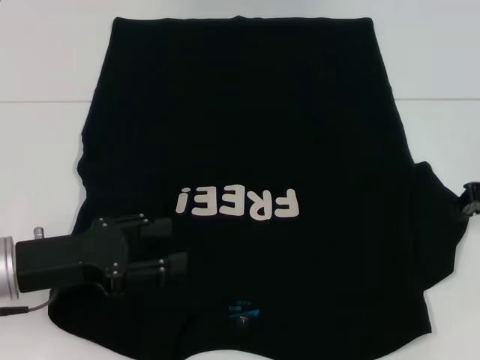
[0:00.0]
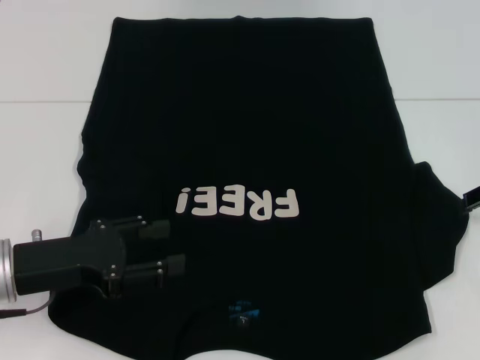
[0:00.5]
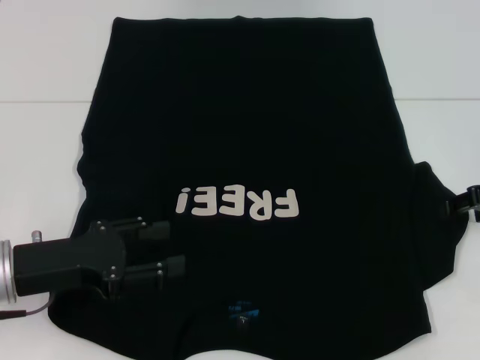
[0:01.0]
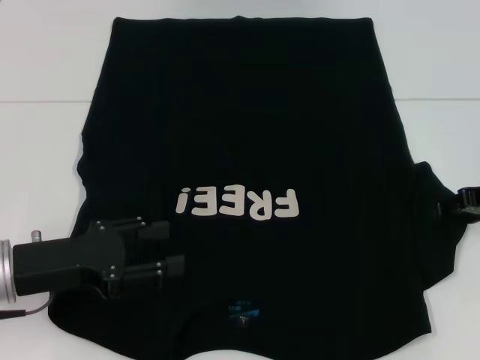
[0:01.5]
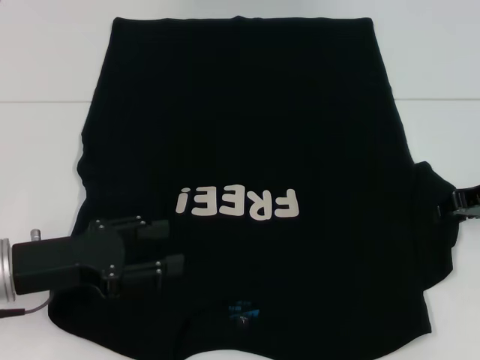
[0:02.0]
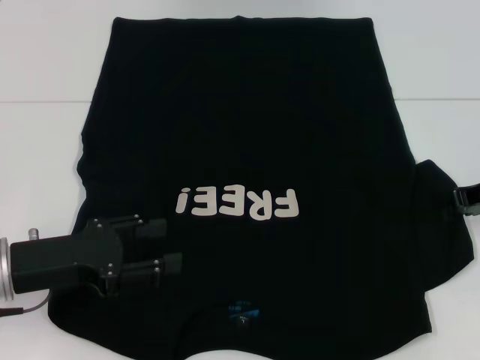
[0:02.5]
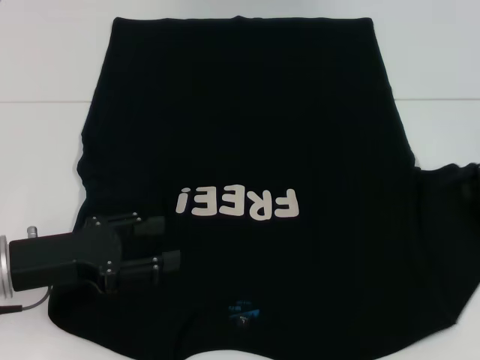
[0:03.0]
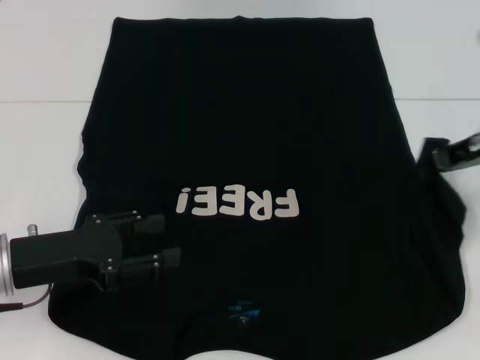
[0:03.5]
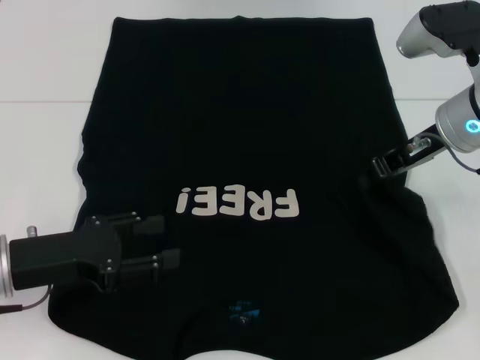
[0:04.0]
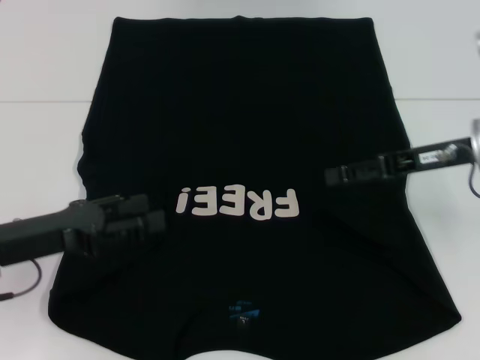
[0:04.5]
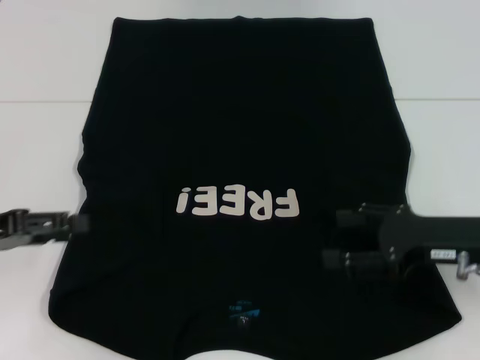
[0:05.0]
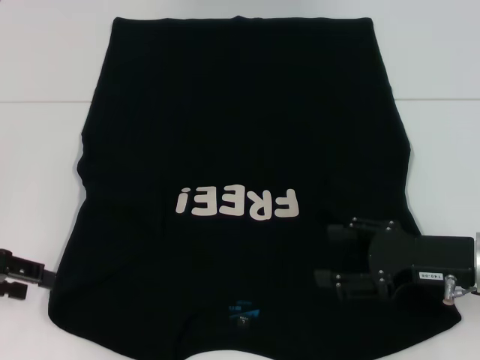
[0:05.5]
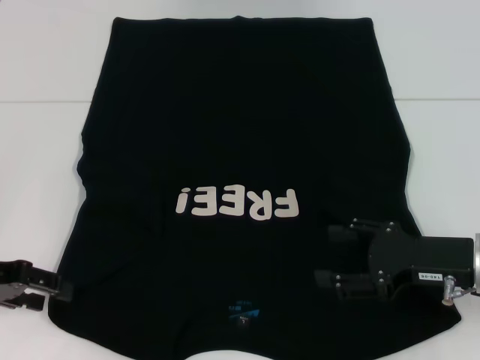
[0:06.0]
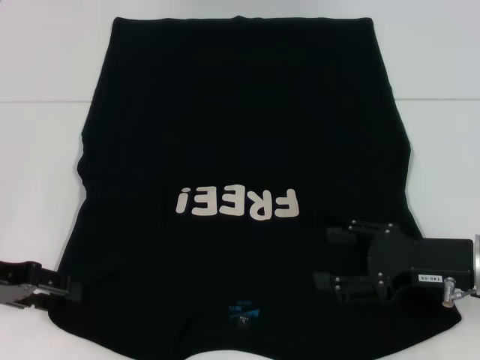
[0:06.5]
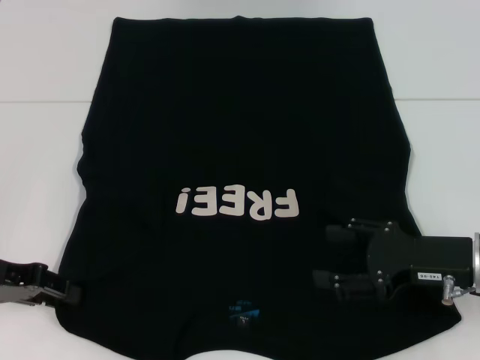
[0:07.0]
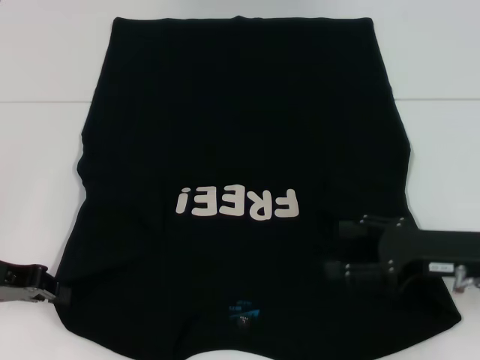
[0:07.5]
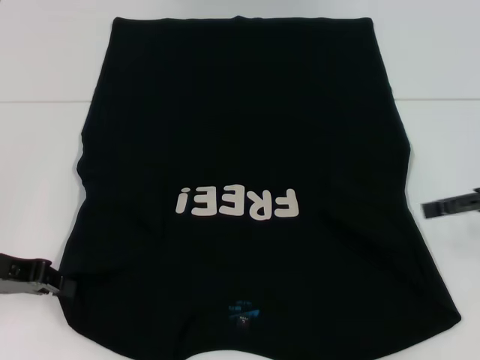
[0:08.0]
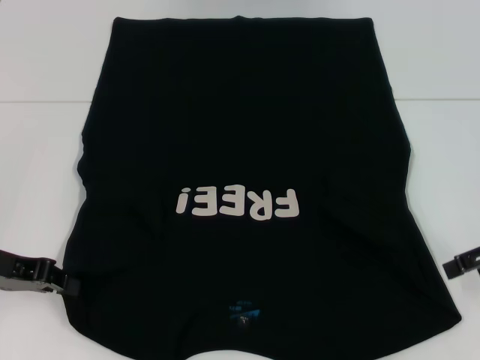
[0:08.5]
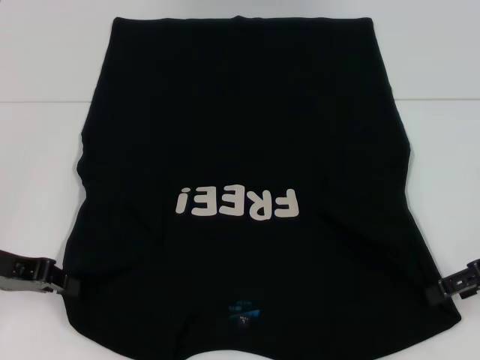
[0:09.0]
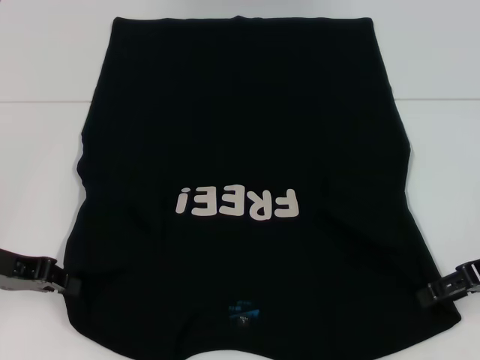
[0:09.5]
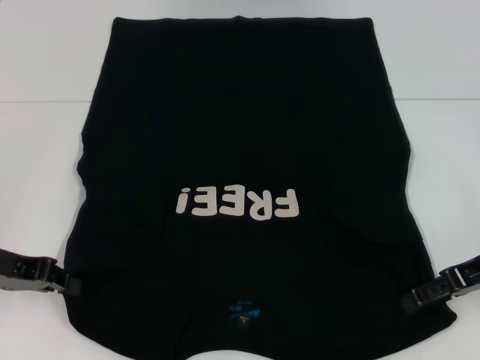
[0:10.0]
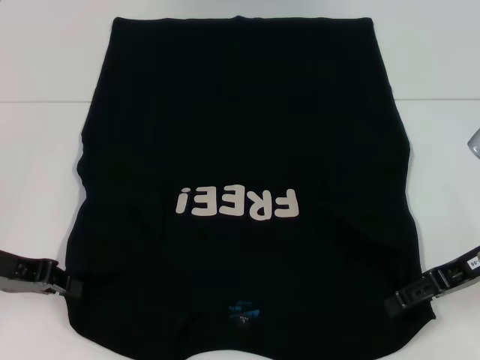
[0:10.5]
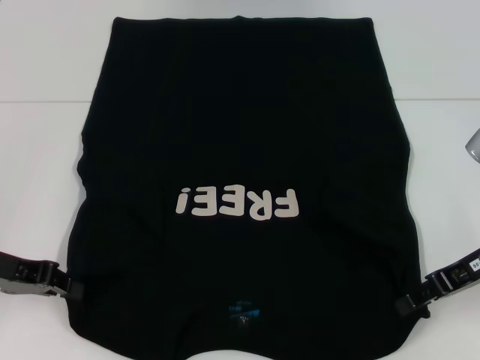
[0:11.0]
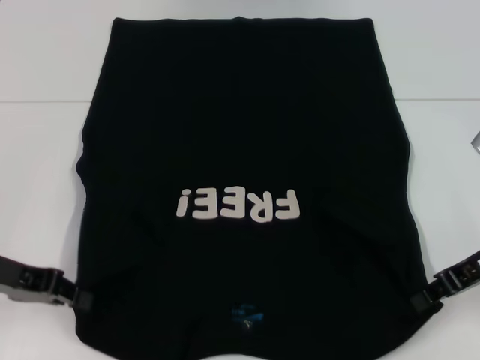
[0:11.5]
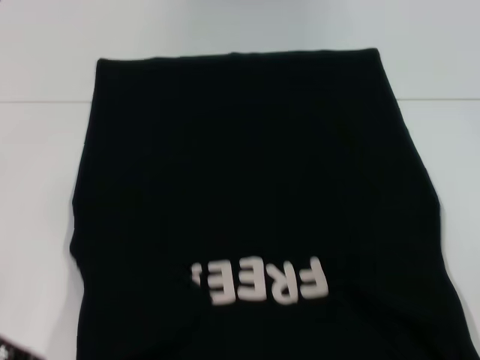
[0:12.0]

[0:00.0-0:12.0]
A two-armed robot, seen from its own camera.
Step, 0:00.0 to 0:04.0: Fold the bottom right sleeve with your right hand.
Step, 0:04.5 to 0:08.0: Grab the bottom left corner with your left hand.
Step, 0:08.5 to 0:11.5: Grab the bottom right corner with your right hand.
0:00.0 to 0:02.0: The right gripper opens its fingers.
0:02.0 to 0:04.0: The right gripper shifts approximately 10 cm to the left, and closes its fingers.
0:04.0 to 0:06.0: The left gripper travels to the left by approximately 5 cm. Meanwhile the right gripper moves backward and downward, roughly 15 cm, and opens up.
0:06.0 to 0:08.0: The right gripper moves to the right, upward and forward, roughly 15 cm, while the left gripper closes.
0:08.0 to 0:10.0: The right gripper moves some 5 cm.
0:10.0 to 0:12.0: The right gripper closes its fingers.

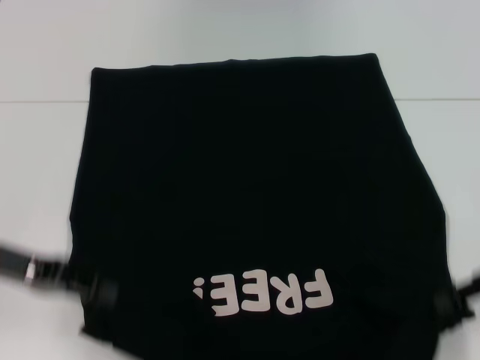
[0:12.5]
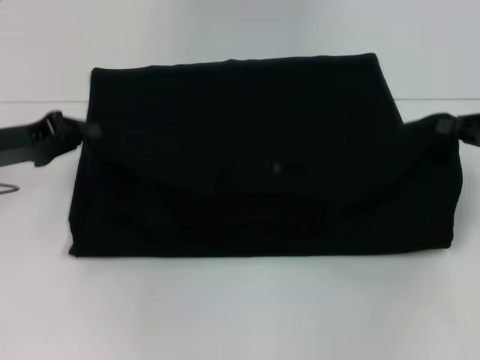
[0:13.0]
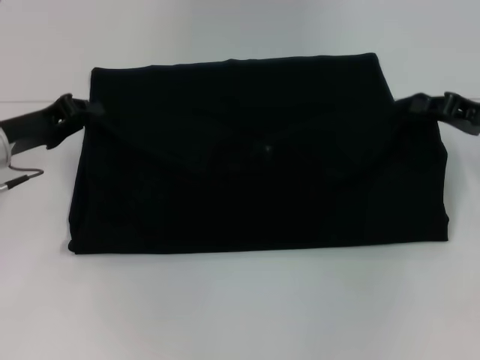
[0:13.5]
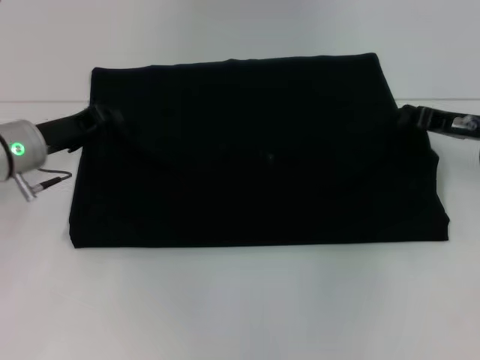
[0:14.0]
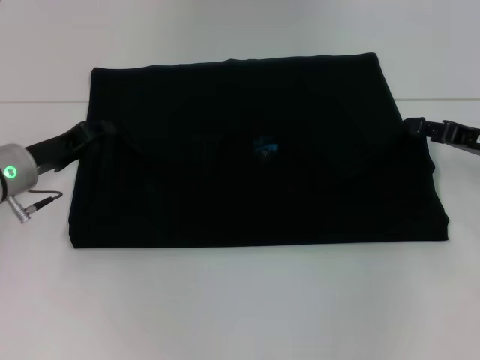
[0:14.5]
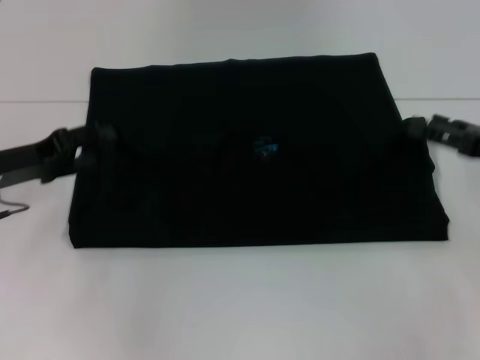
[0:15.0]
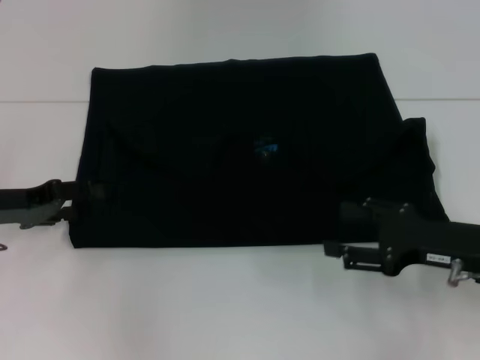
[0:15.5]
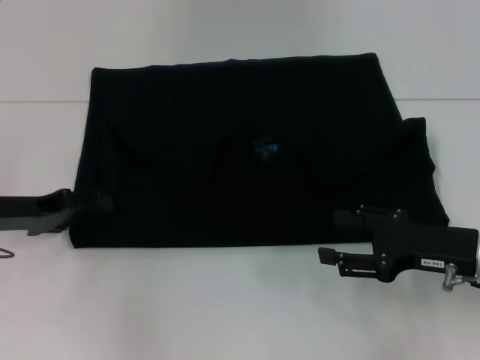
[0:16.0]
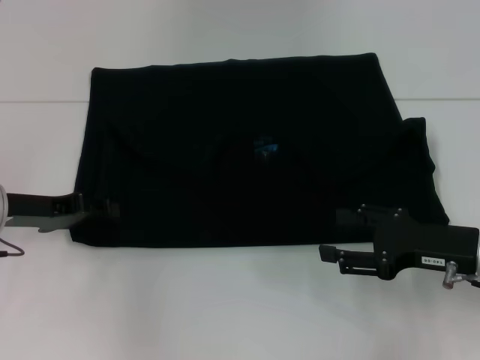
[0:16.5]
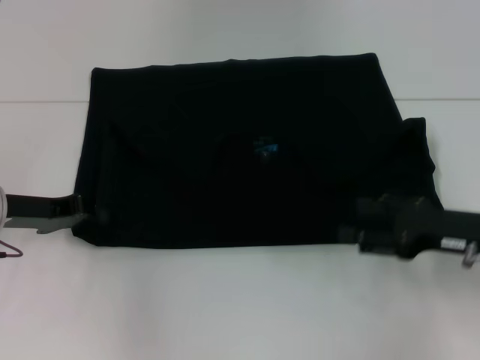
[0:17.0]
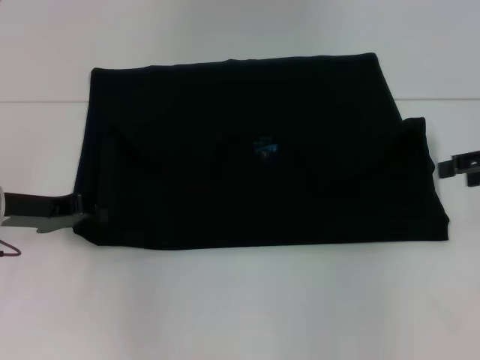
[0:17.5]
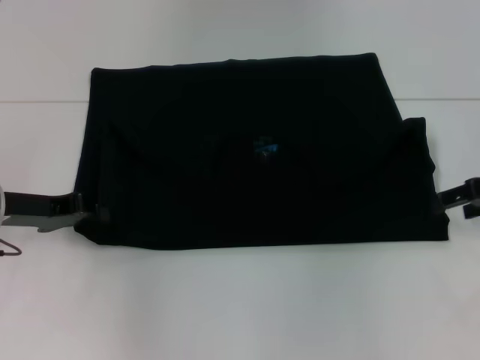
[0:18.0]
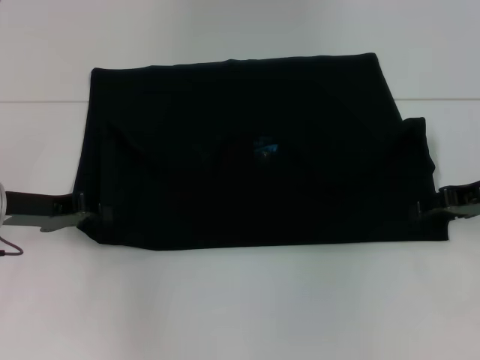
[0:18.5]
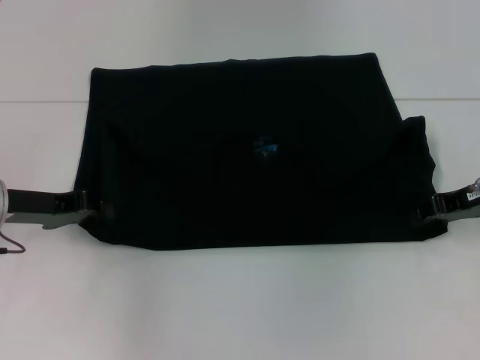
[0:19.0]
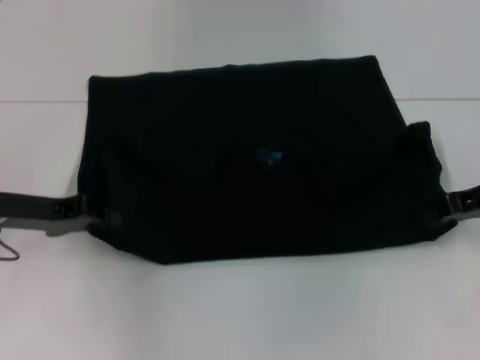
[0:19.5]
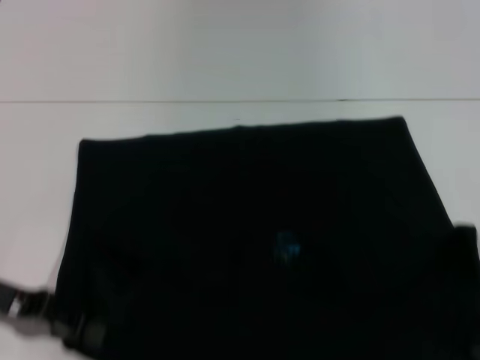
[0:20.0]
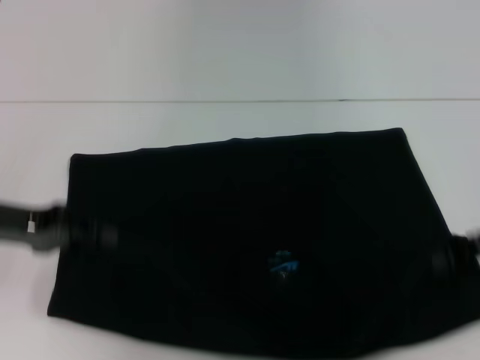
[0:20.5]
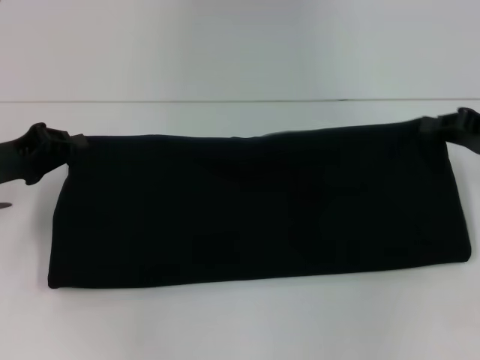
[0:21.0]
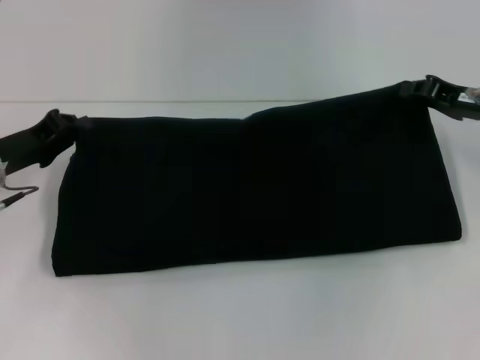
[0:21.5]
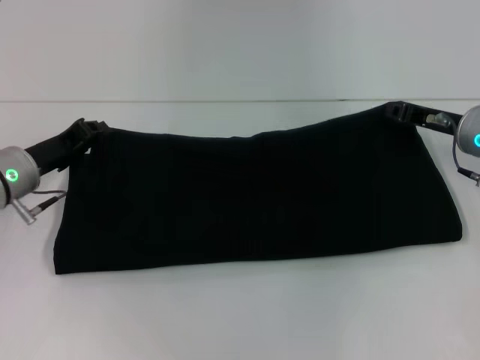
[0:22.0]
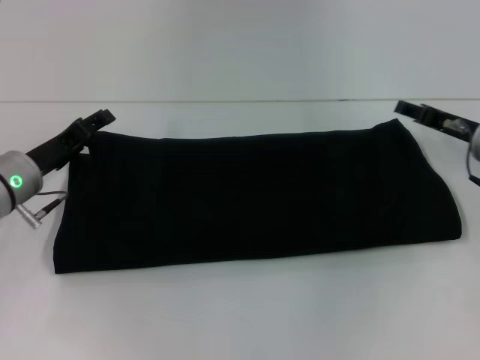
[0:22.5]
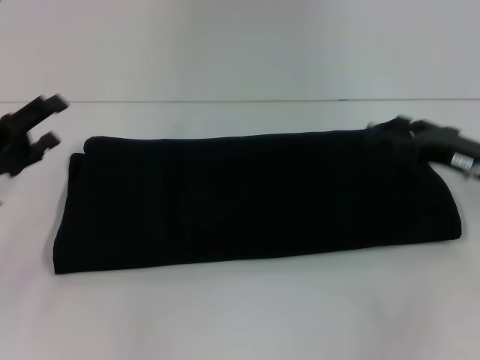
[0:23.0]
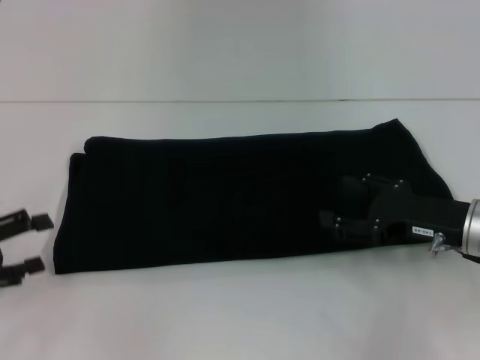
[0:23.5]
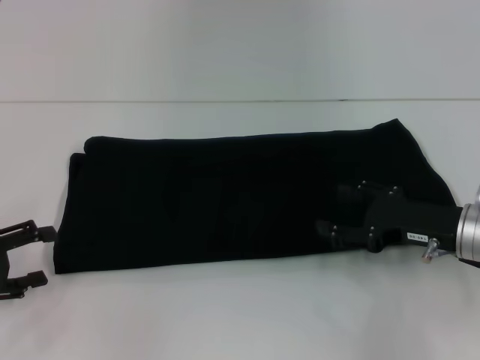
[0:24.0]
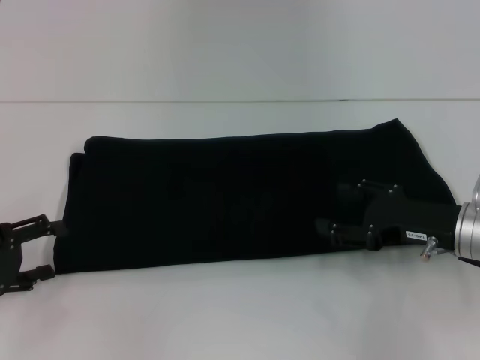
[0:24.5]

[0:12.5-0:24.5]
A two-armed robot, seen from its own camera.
Step, 0:12.5 to 0:14.0: Fold the clothes with your left hand.
Step, 0:12.5 to 0:14.0: Fold the clothes with your right hand.
Step, 0:14.5 to 0:20.0: Pull the clothes with your left hand.
Step, 0:14.5 to 0:20.0: Pull the clothes with your right hand.
Step, 0:20.5 to 0:22.5: Fold the clothes with your right hand.
0:12.5 to 0:14.5: The left gripper heads forward and downward, covering about 10 cm. The right gripper travels forward by roughly 10 cm.
0:14.5 to 0:16.5: The right gripper moves backward and to the left, about 10 cm, and opens. Meanwhile the left gripper opens its fingers.
0:16.5 to 0:18.5: The right gripper heads forward and upward, covering roughly 10 cm. The left gripper closes up.
0:18.5 to 0:20.5: The right gripper is displaced backward by approximately 5 cm, and closes up; the left gripper shifts by roughly 5 cm.
0:20.5 to 0:22.5: The left gripper travels downward and forward by approximately 10 cm, and opens its fingers, while the right gripper shifts approximately 10 cm forward, to the left and downward, and opens up.
0:22.5 to 0:24.5: The right gripper shifts some 10 cm backward, and opens up, while the left gripper moves backward and to the left, some 15 cm, and opens its fingers.

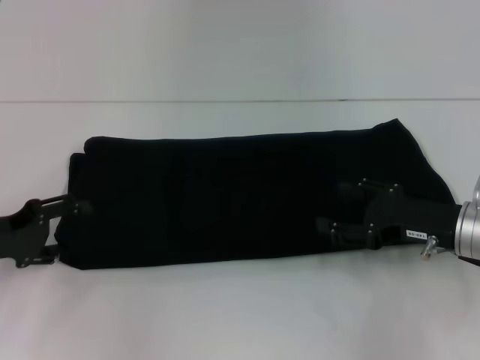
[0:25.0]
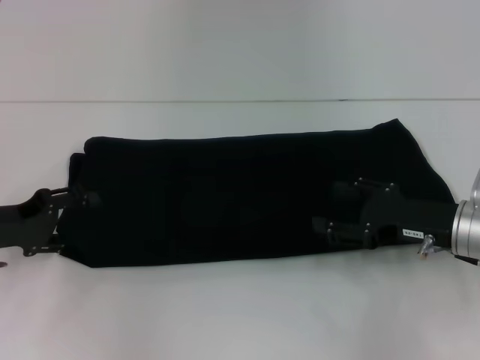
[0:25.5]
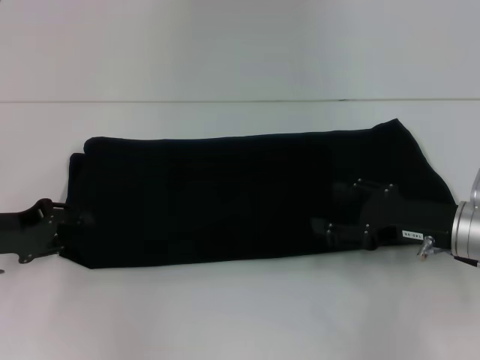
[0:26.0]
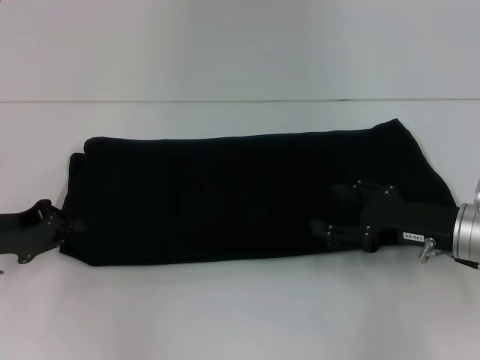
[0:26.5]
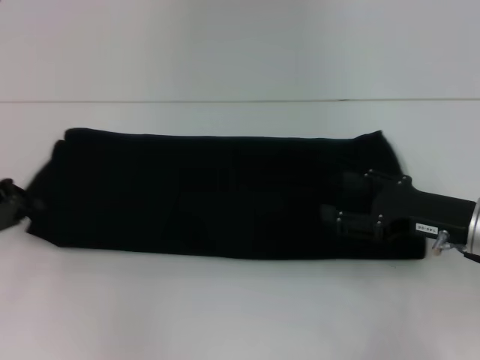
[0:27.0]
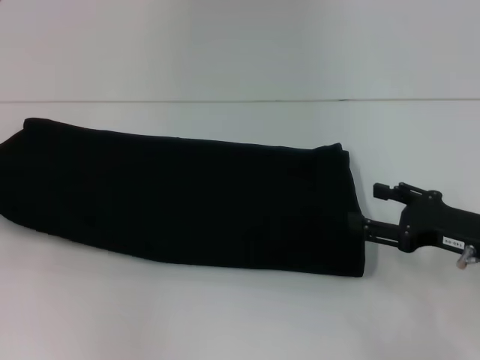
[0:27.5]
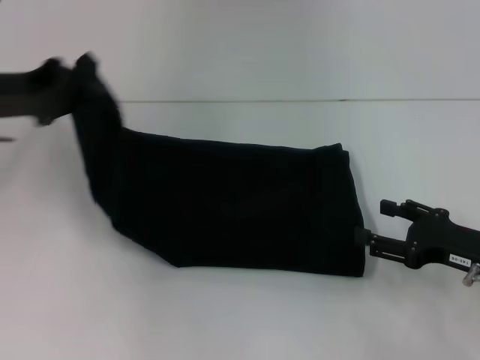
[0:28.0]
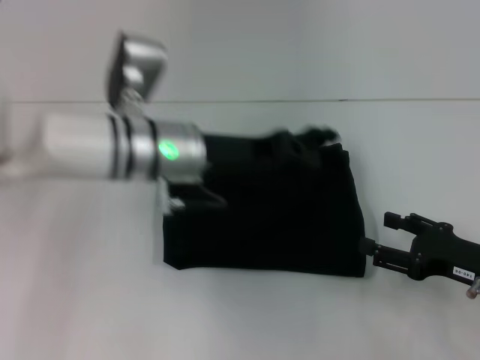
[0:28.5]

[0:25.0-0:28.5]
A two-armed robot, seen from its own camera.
0:25.0 to 0:27.0: The left gripper closes its fingers.
0:27.0 to 0:28.5: The left gripper shifts about 25 cm to the right, while the right gripper shifts by roughly 5 cm.
